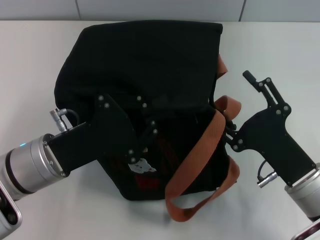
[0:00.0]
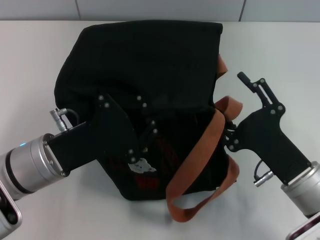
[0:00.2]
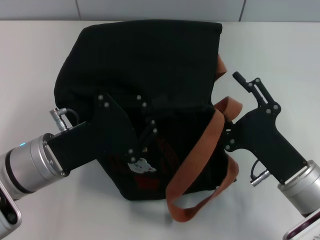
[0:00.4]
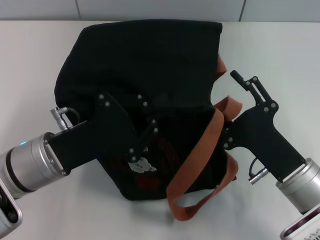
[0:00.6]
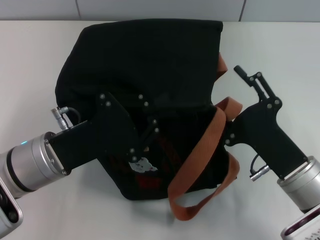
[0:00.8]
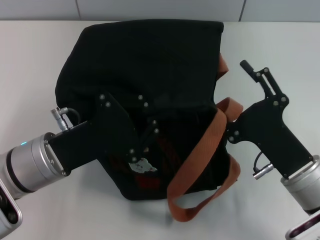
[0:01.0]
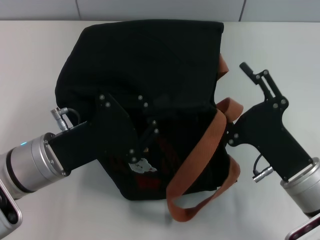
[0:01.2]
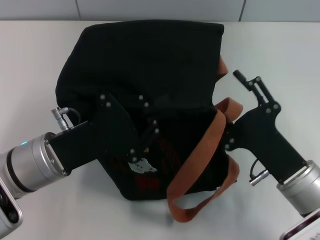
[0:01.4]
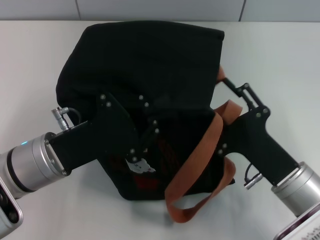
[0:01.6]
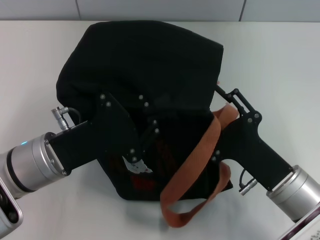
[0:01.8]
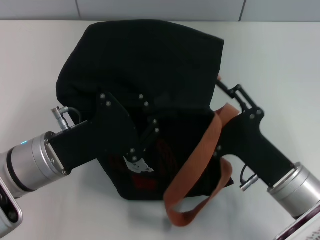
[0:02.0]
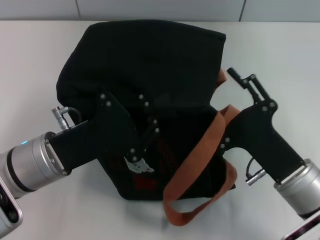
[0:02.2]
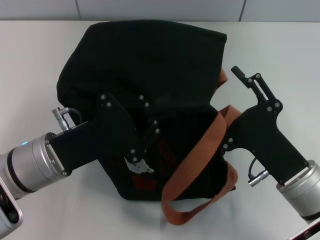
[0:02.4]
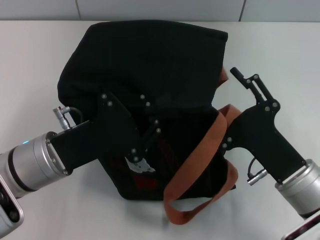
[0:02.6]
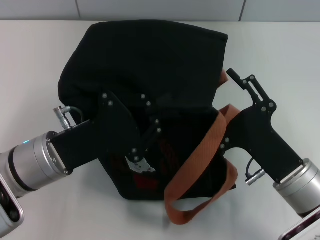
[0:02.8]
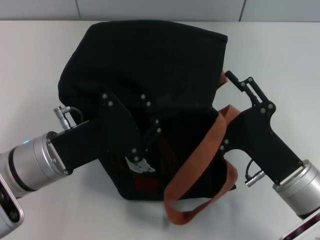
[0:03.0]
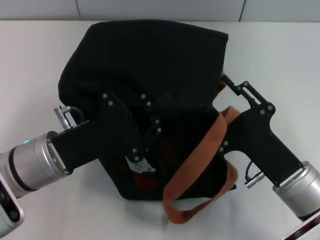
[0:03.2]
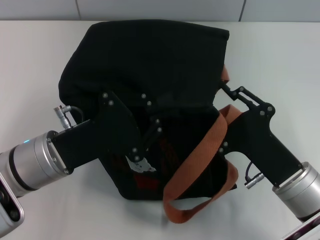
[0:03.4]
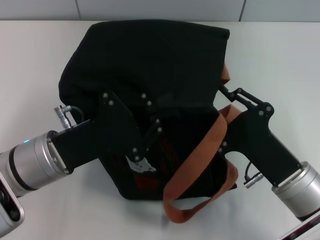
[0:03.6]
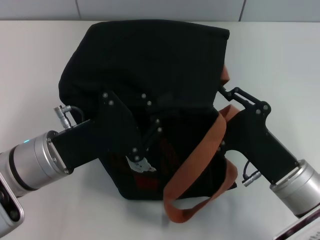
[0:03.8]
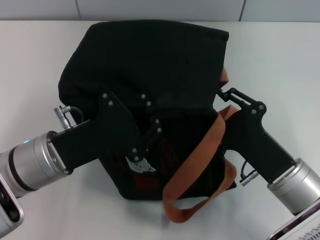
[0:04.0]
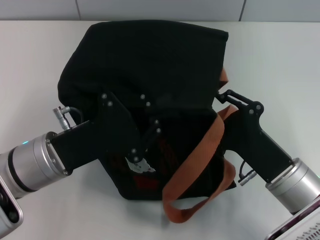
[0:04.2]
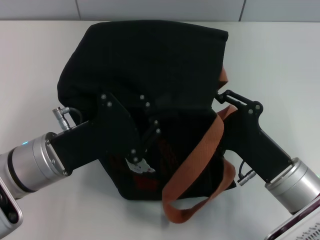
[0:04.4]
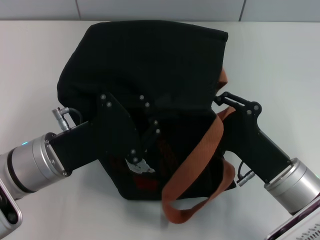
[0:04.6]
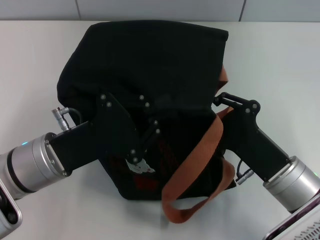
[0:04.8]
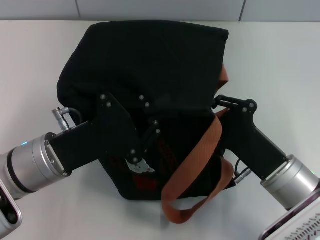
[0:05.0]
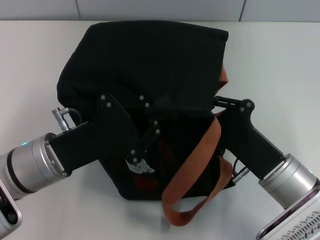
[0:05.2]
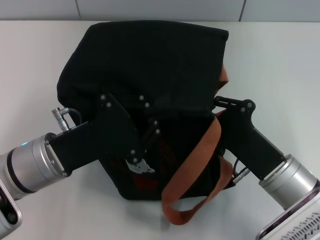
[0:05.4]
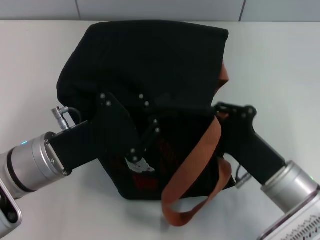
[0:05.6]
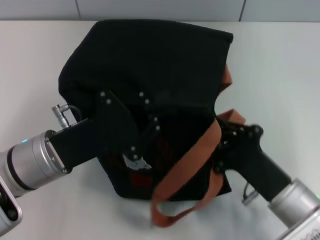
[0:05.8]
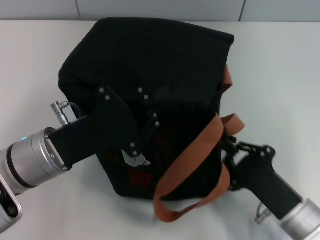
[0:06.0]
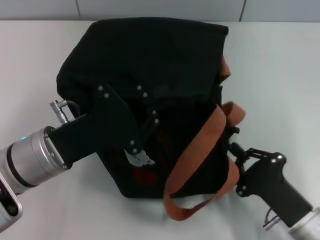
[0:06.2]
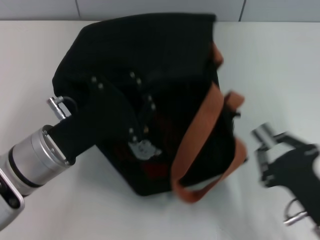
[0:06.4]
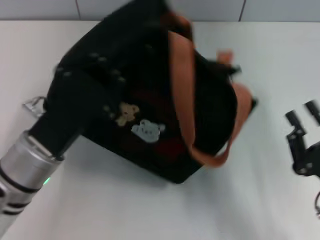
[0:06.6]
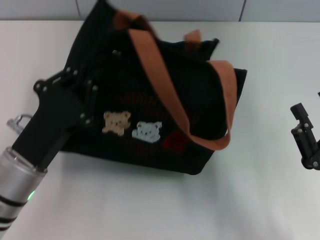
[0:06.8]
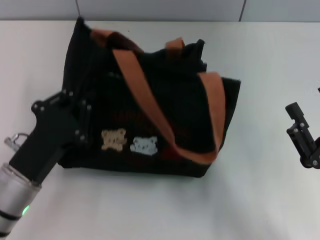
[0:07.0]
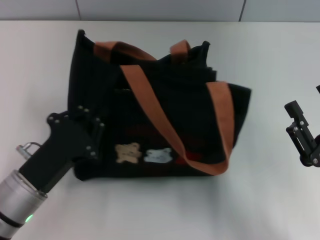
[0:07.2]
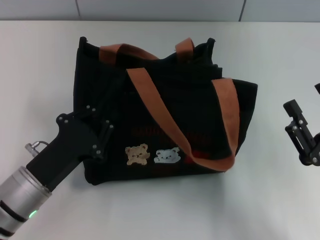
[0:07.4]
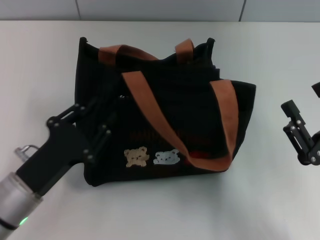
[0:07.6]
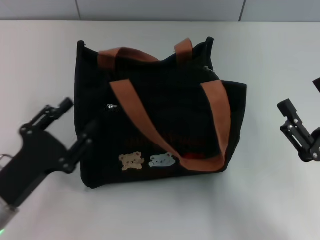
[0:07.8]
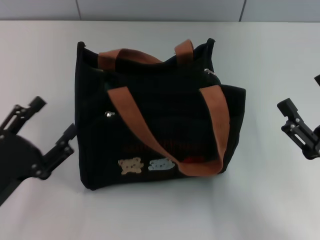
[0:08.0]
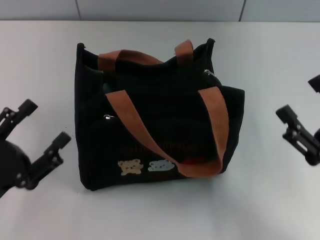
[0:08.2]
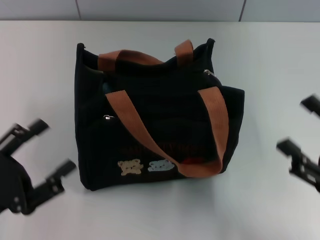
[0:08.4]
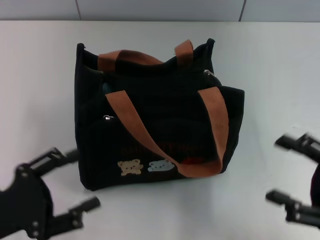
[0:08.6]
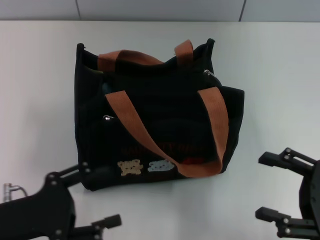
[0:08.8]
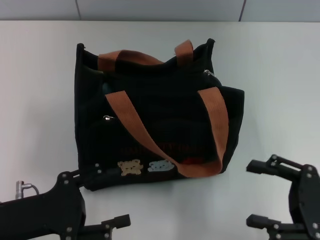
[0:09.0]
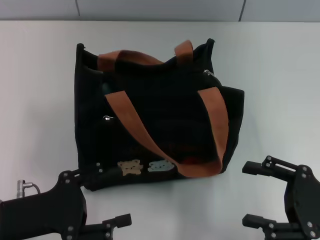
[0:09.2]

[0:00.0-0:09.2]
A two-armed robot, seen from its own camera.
Step, 0:00.0 to 0:06.2: Pull open the zipper with your right hand.
Step, 0:06.4 to 0:07.6: Grab the bag with your left hand.
0:00.0 to 0:01.6: Both grippers stay put.
0:01.6 to 0:03.0: The grippers move only a little.
0:03.0 to 0:04.6: The right gripper closes.
0:04.6 to 0:06.2: The right gripper moves backward, roughly 5 cm.
0:06.2 to 0:07.6: The left gripper heads downward and backward, covering about 10 cm. The right gripper heads upward, covering approximately 5 cm, and opens.
0:07.6 to 0:09.2: The left gripper opens.

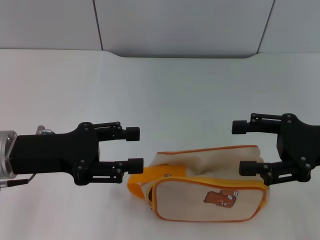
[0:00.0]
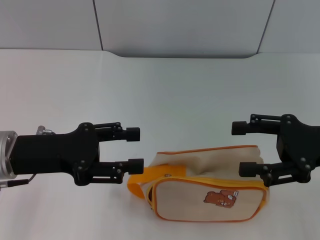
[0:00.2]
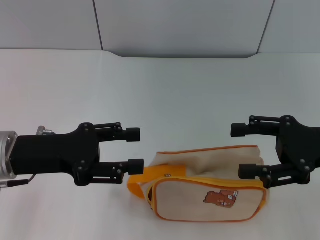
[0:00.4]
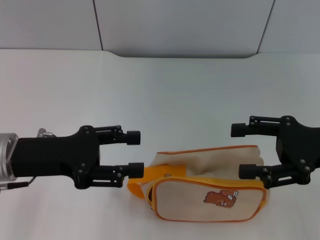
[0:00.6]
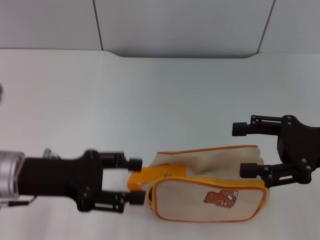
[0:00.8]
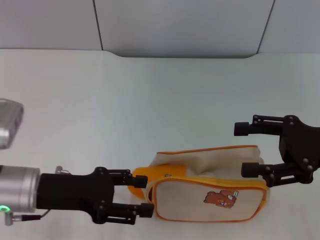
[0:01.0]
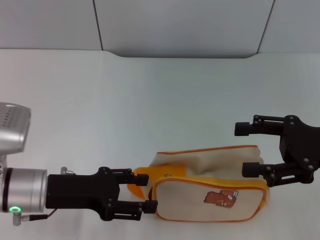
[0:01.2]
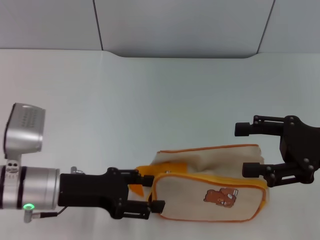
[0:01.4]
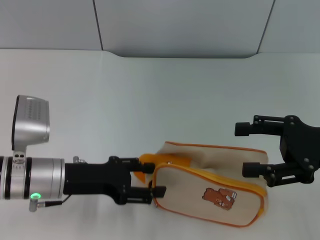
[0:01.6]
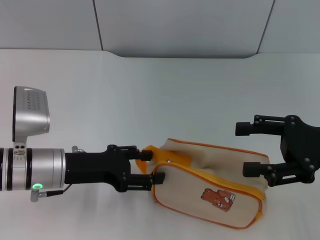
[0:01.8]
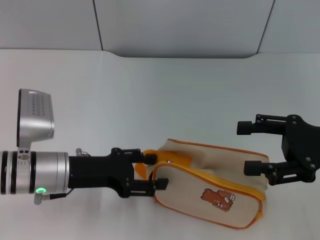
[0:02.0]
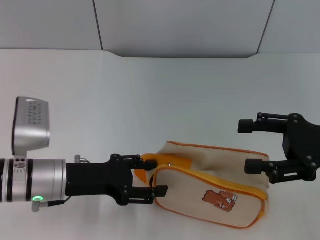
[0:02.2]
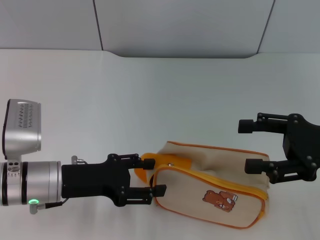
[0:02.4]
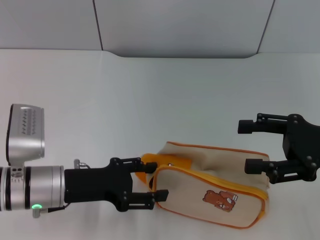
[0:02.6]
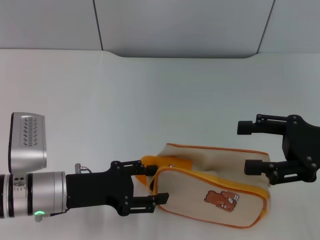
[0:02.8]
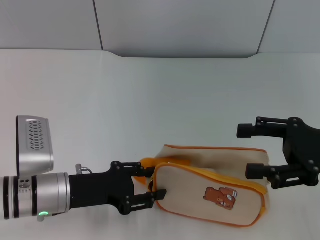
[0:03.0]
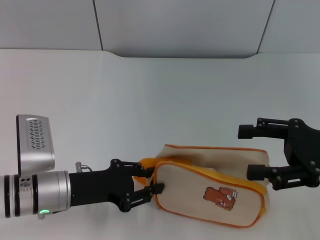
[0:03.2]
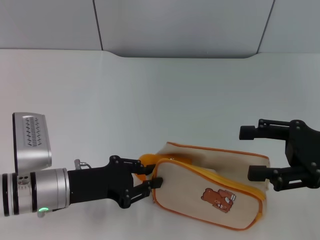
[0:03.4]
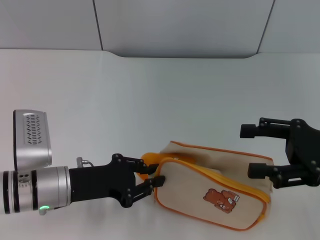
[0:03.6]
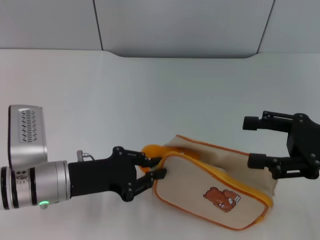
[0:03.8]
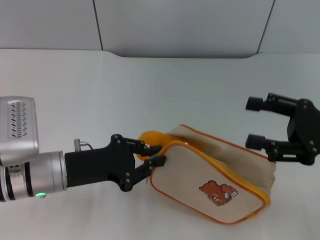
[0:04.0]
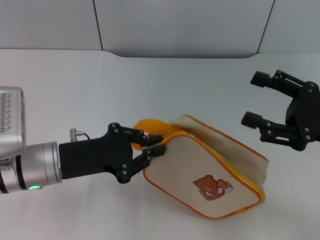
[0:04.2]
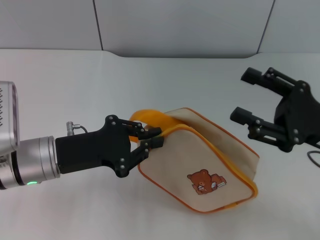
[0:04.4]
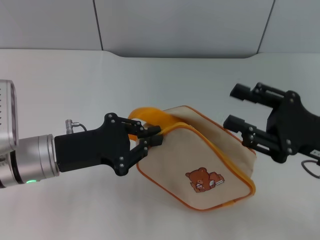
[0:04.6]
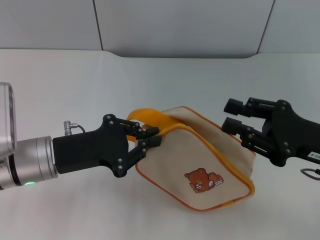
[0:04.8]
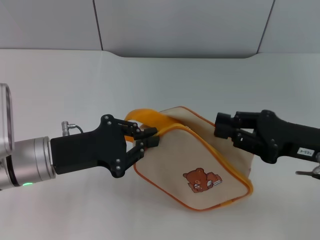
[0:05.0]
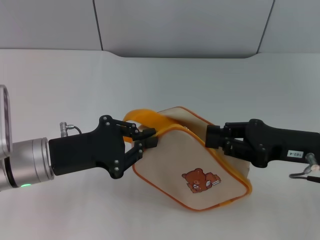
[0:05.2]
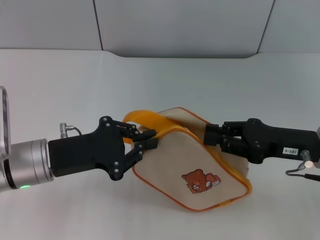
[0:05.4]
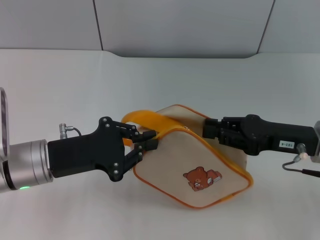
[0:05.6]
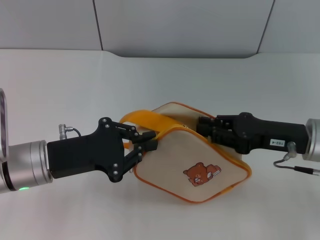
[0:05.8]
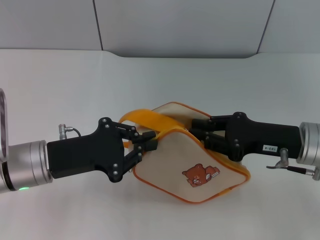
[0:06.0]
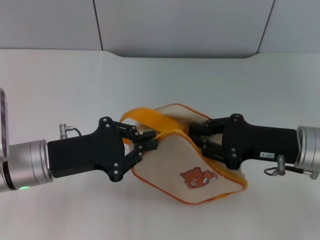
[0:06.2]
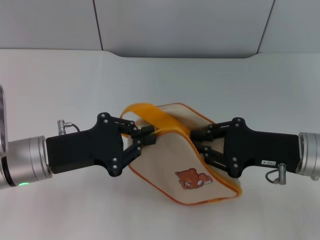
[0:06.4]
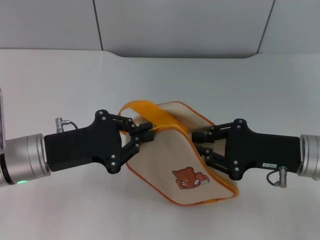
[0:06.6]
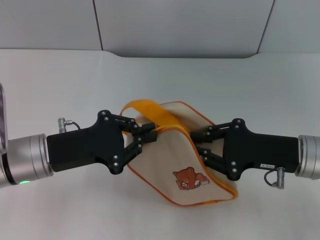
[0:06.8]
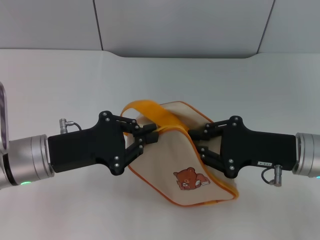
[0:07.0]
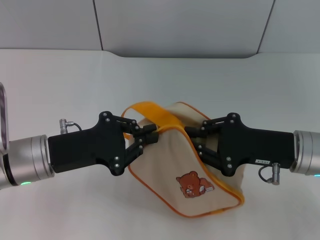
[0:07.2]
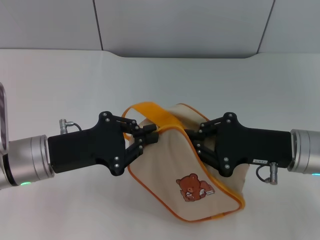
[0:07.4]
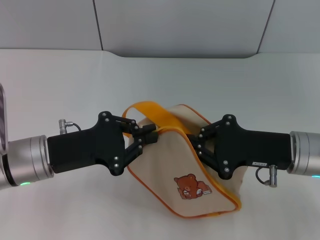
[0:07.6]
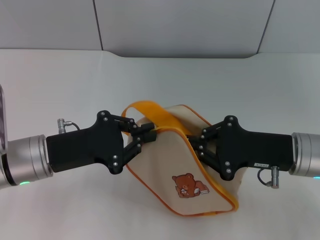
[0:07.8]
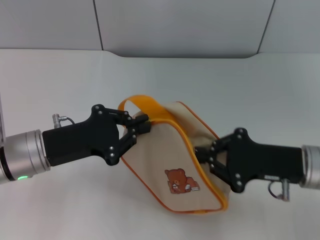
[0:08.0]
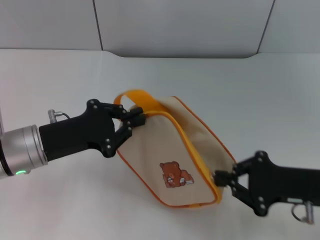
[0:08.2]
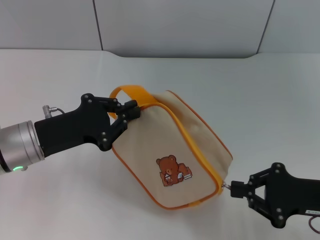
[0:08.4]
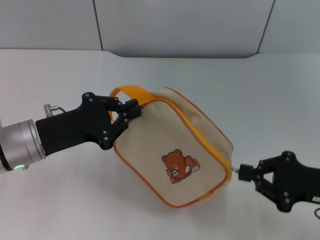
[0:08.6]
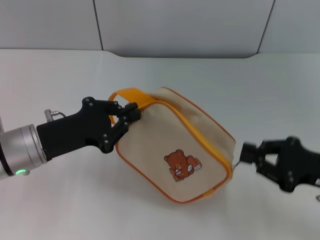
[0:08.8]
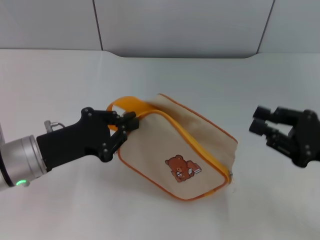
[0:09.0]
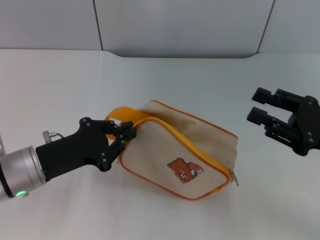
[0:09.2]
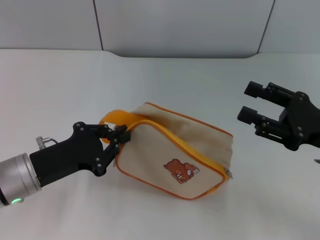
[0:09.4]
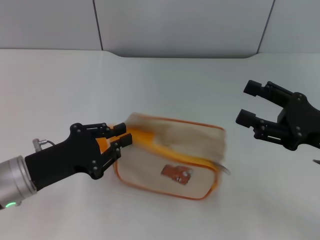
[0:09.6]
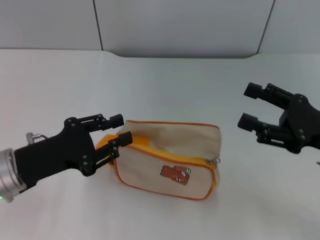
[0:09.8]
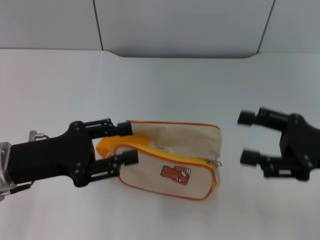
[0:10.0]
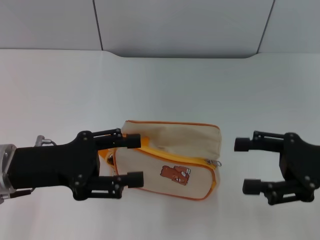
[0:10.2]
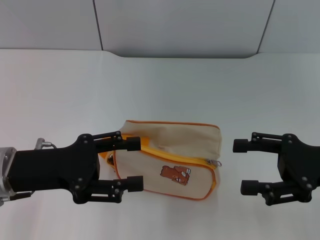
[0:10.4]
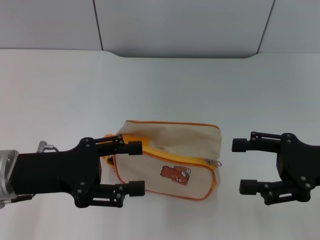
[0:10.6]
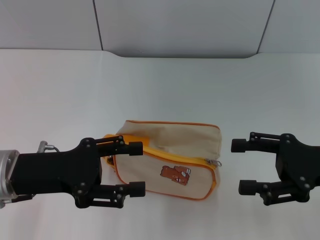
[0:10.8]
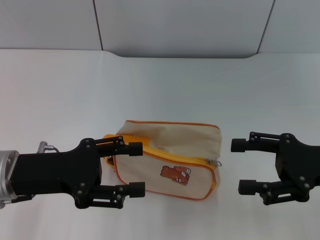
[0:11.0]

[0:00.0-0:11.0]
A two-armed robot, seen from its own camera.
Step, 0:00.0 to 0:04.4: Pick up the bag with left gripper.
Step, 0:04.8 to 0:08.8: Unzip the zipper of bag with right gripper.
Step, 0:09.0 to 0:10.0: Place the bag on the table with left gripper.
0:00.0 to 0:01.6: The left gripper travels downward by roughly 5 cm.
0:01.6 to 0:03.2: There are only small adjustments of the grippers.
0:03.2 to 0:04.8: The left gripper shifts some 5 cm upward, and closes up.
0:04.8 to 0:06.2: The right gripper moves some 5 cm, and closes its fingers.
0:06.2 to 0:07.8: The grippers move only a little.
0:07.8 to 0:09.4: The right gripper travels to the right by some 5 cm, and opens up.
0:09.4 to 0:11.0: The right gripper opens its fingers. The left gripper goes approximately 5 cm upward, and opens.
